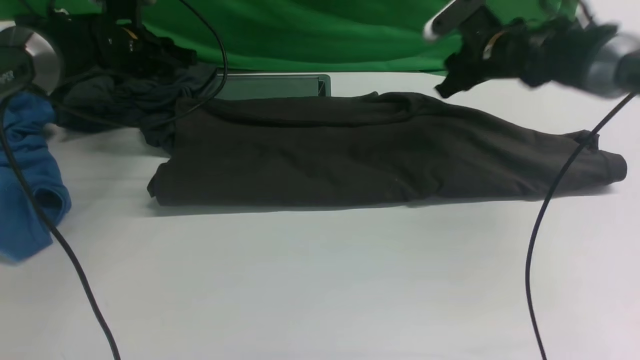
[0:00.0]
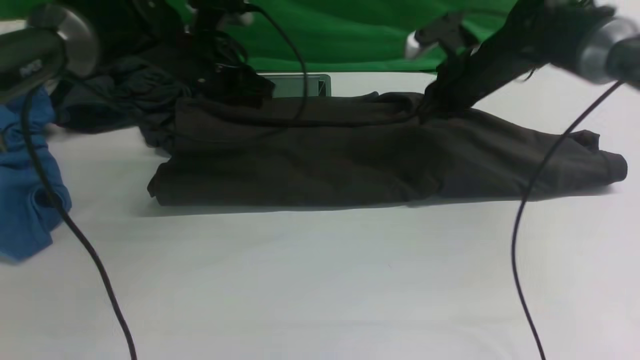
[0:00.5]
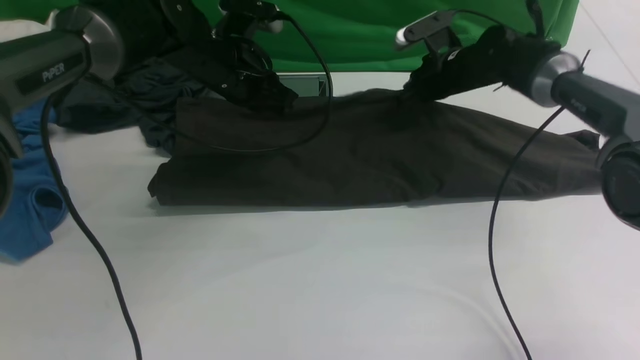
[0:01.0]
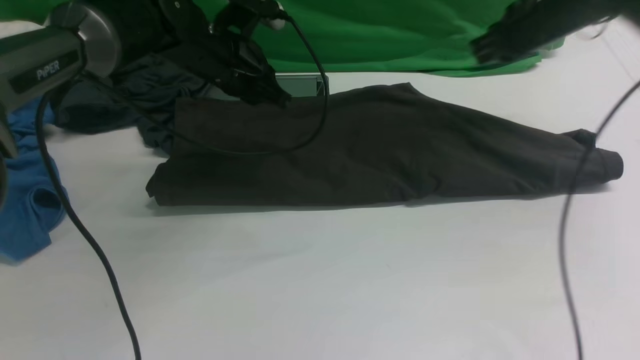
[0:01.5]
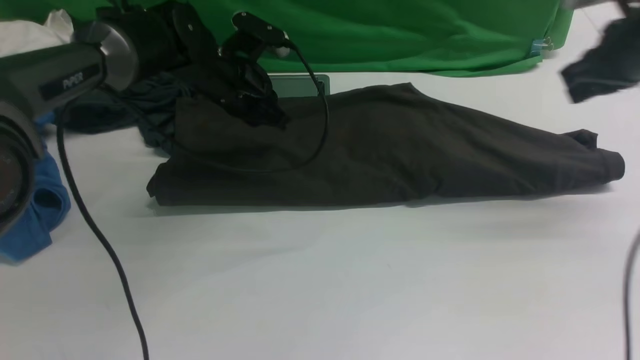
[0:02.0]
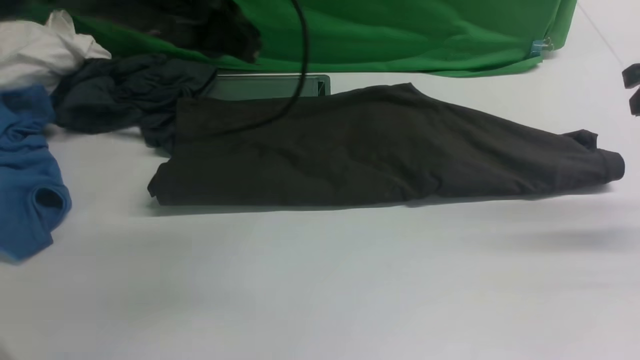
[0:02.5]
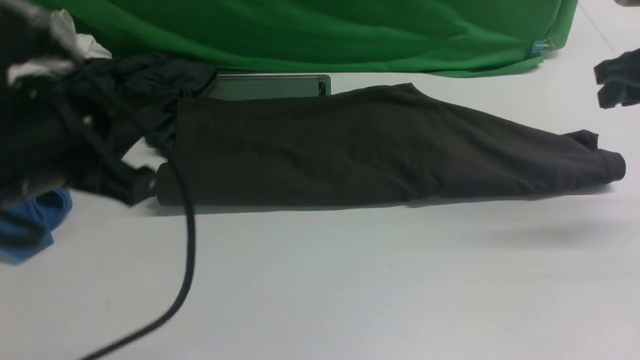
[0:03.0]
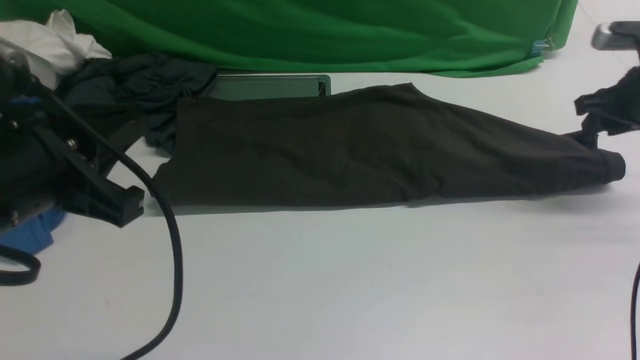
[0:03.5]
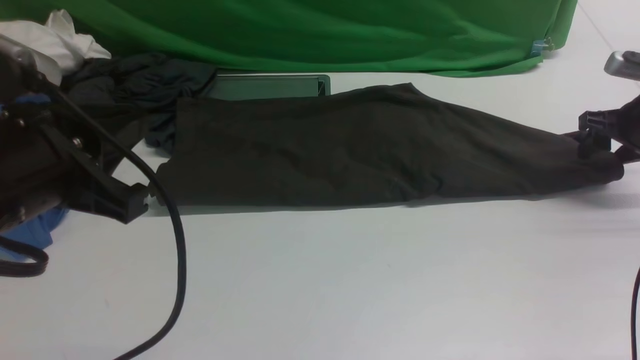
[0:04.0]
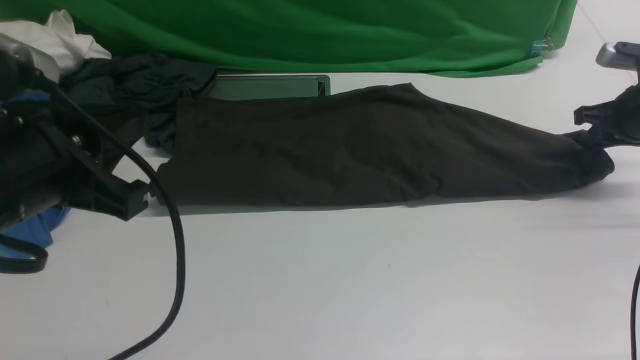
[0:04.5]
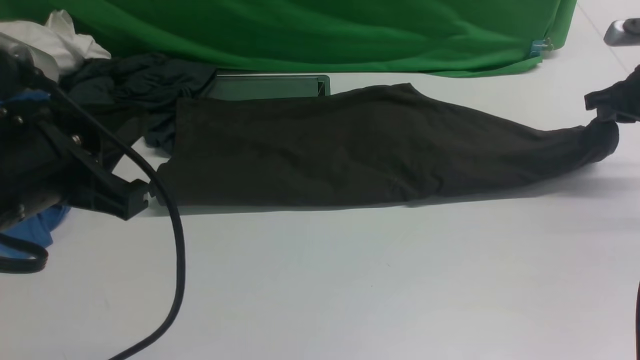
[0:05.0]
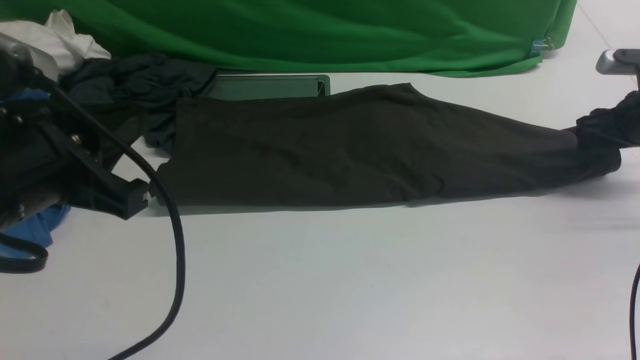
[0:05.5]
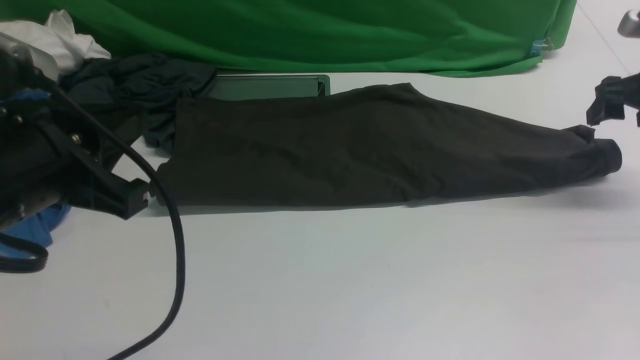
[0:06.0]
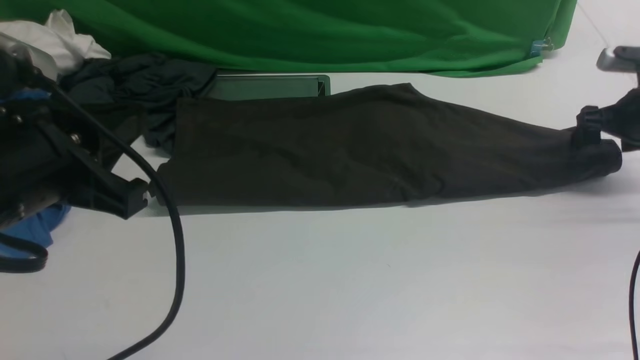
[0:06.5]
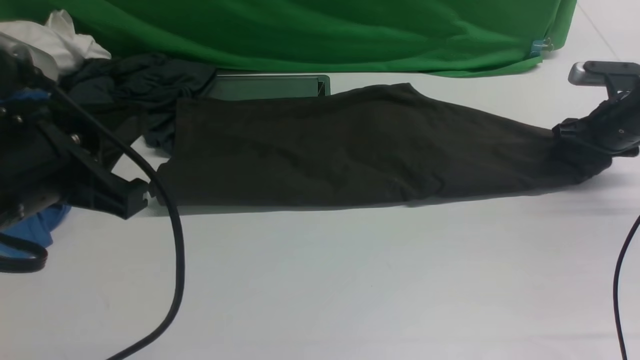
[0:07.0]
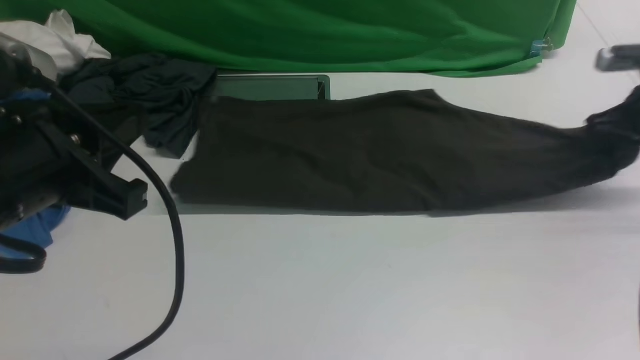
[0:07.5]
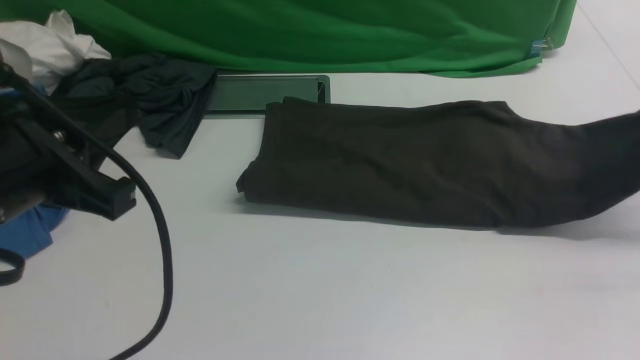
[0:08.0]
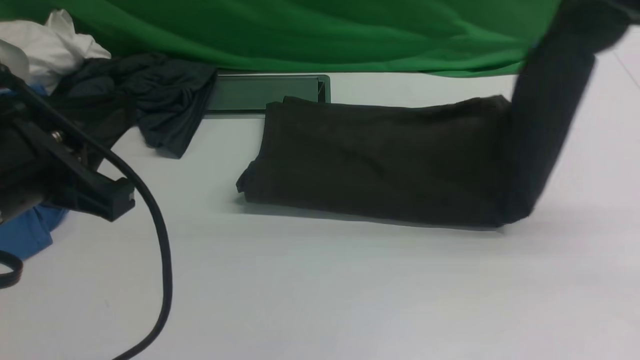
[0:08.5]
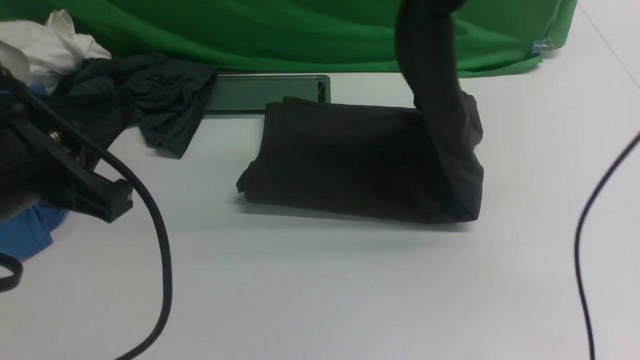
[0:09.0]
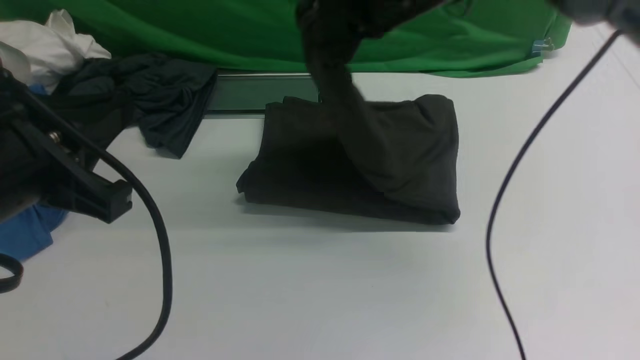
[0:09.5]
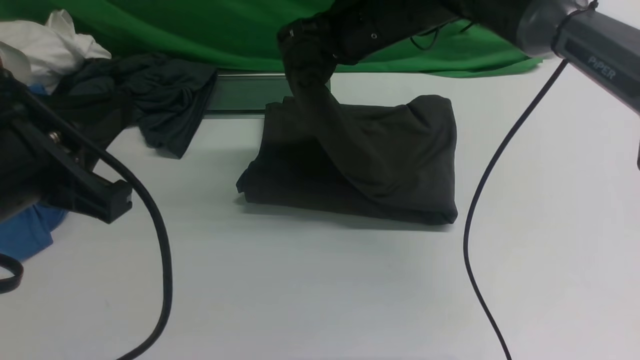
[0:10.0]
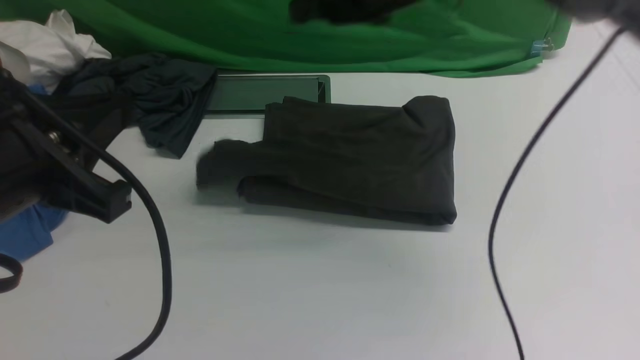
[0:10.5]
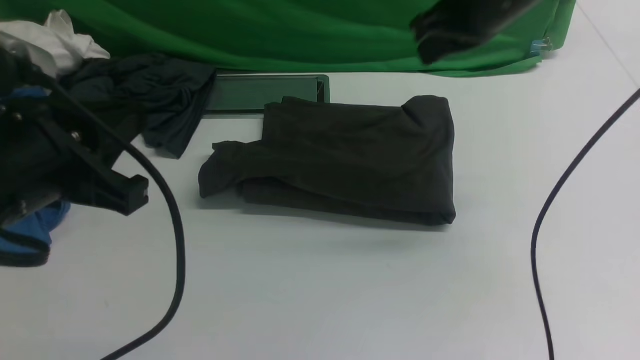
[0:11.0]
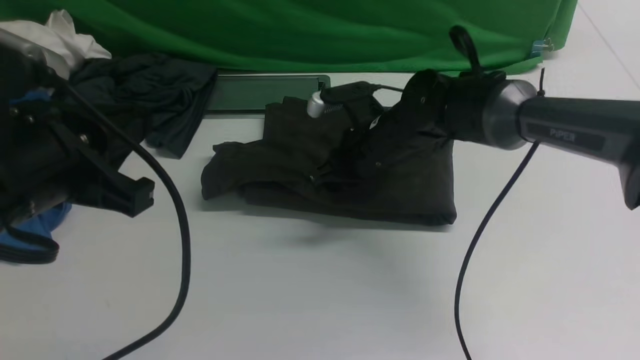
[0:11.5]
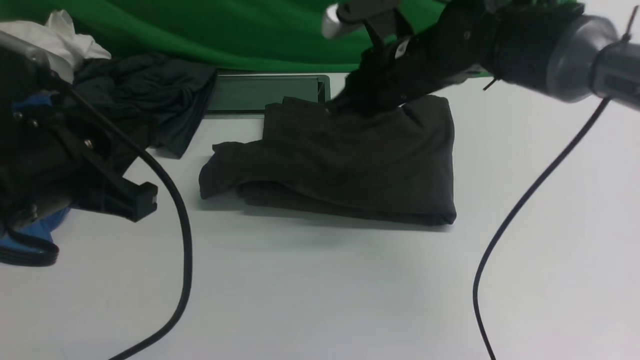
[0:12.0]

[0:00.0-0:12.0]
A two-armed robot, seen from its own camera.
Step, 0:00.0 to 0:02.0: use both arms to drag the lower edge of the fabric forward and fold it over the upper edge.
Step, 0:02.5 to 0:07.0: use the right arm to clamp the right edge of the fabric.
Step, 0:07.5 to 0:10.5: use the right arm to drag the right edge of the fabric to the left and folds it over the left edge.
0:00.0 to 0:02.0: The right gripper moves to the right, backward and upward, about 15 cm. The left gripper heads to the right, covering roughly 10 cm, and closes.
0:02.0 to 0:04.0: The left gripper is displaced backward by about 30 cm. The right gripper is displaced downward and to the right by approximately 15 cm, and opens.
0:04.0 to 0:06.0: The right gripper closes, then opens again.
0:06.0 to 0:08.0: The right gripper goes about 5 cm upward, and closes.
0:08.0 to 0:10.0: The right gripper travels to the left by some 35 cm.
0:10.0 to 0:12.0: The right gripper goes approximately 5 cm downward.

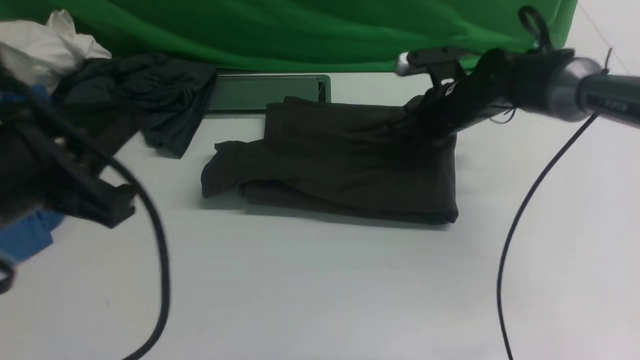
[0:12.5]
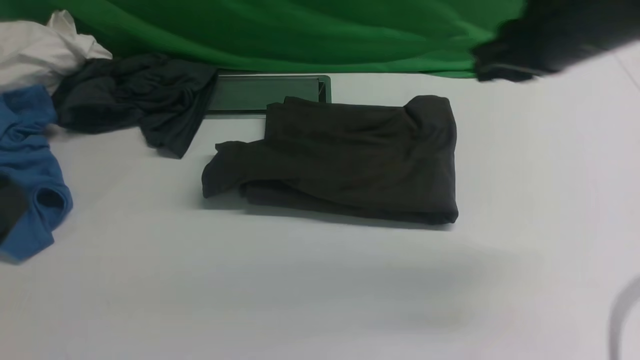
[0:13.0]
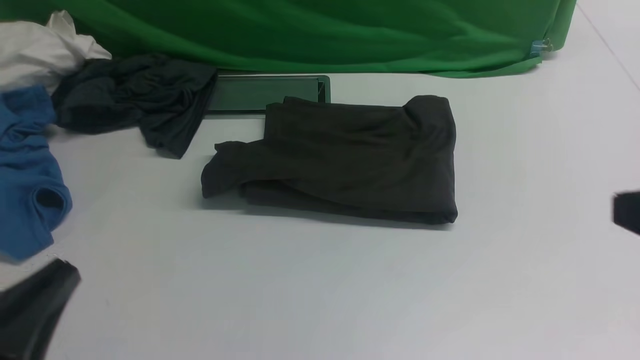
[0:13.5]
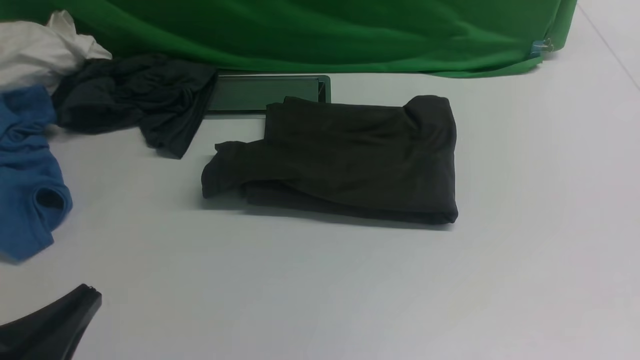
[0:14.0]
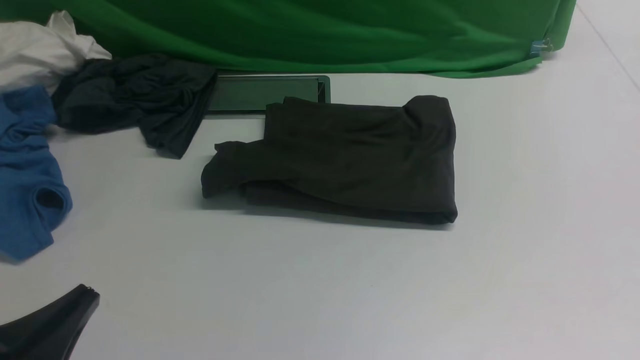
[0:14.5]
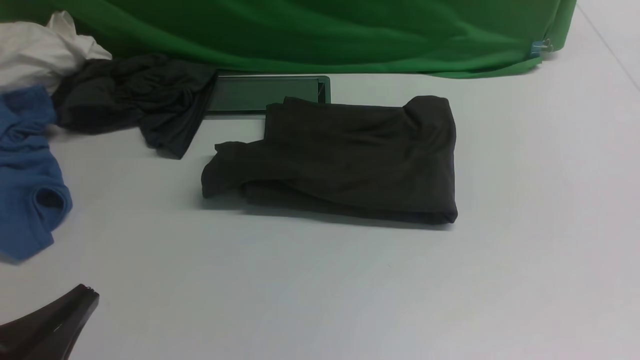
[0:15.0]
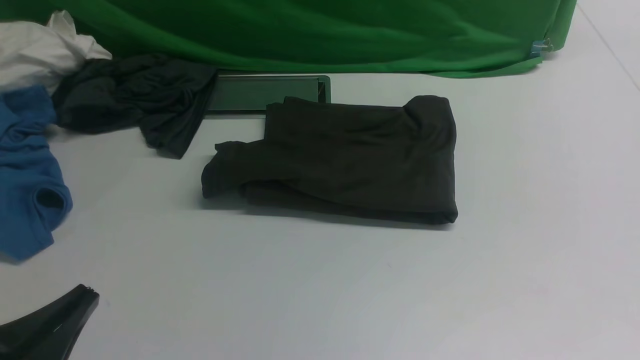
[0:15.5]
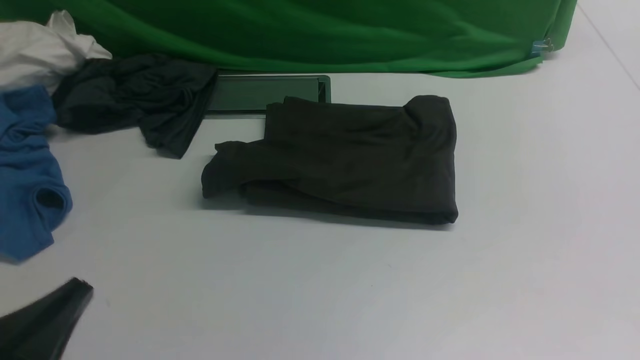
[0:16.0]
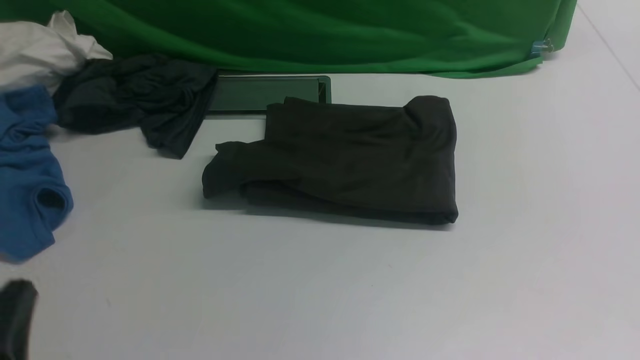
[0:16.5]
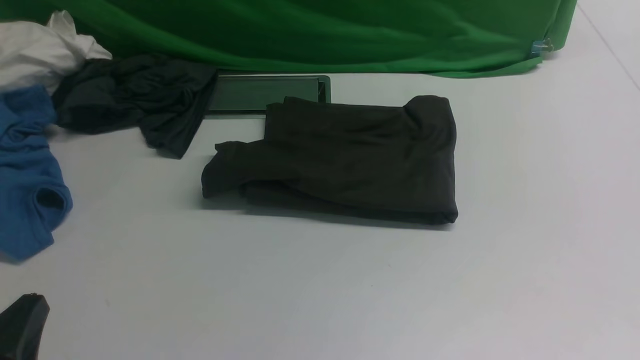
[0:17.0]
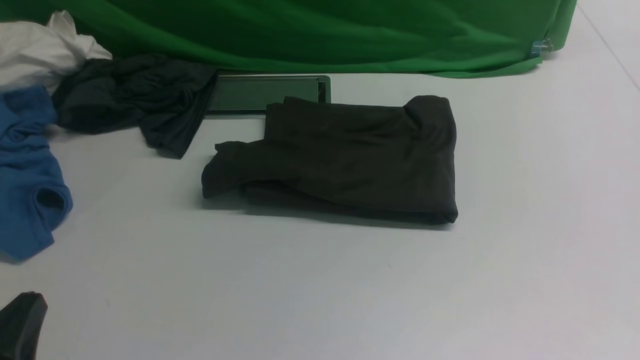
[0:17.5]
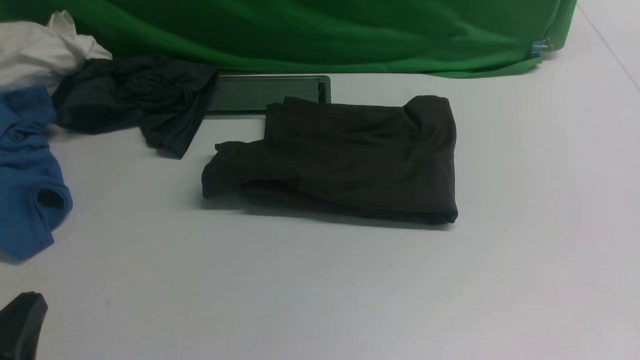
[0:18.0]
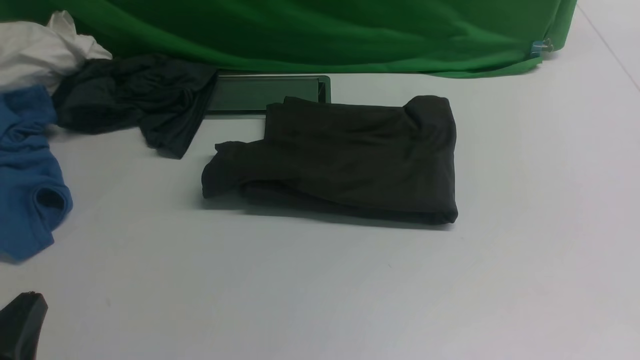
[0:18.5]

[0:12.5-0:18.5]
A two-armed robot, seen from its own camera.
0:12.5 to 0:14.5: The right gripper shifts some 40 cm backward, while the left gripper heads downward and backward, covering about 15 cm.
